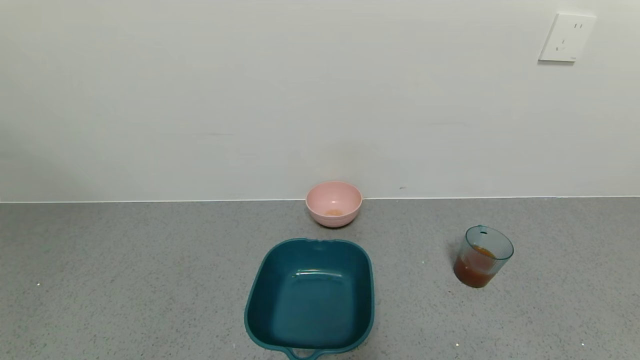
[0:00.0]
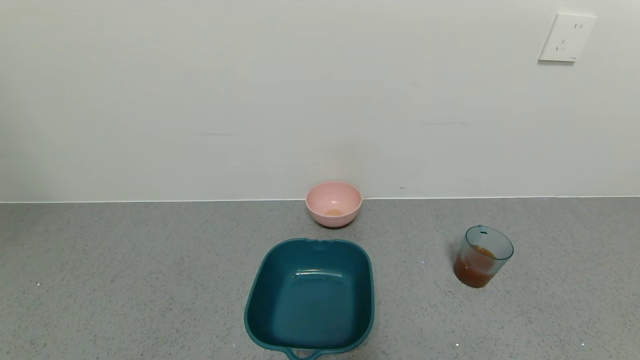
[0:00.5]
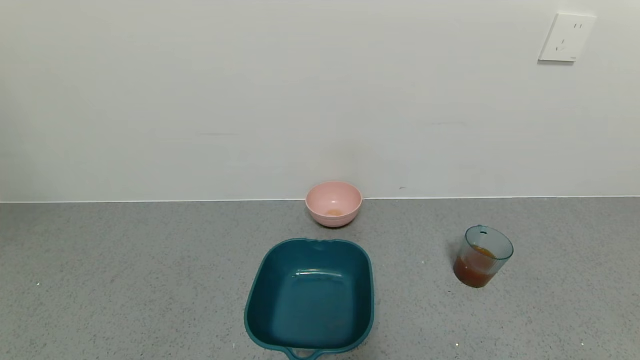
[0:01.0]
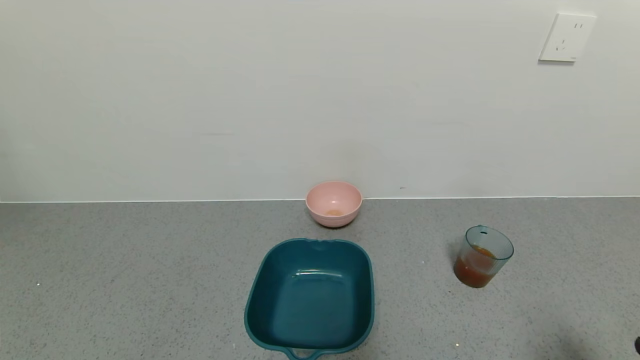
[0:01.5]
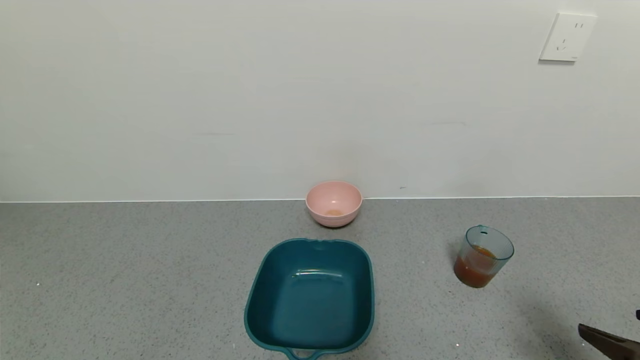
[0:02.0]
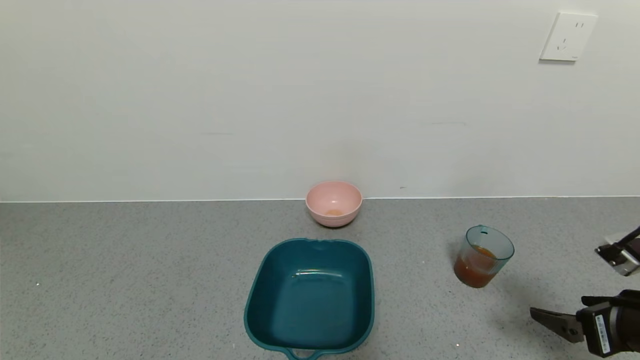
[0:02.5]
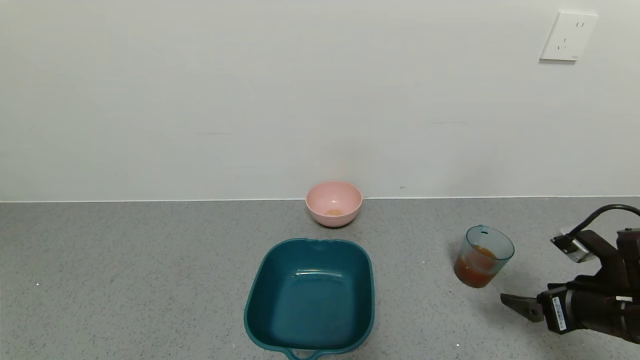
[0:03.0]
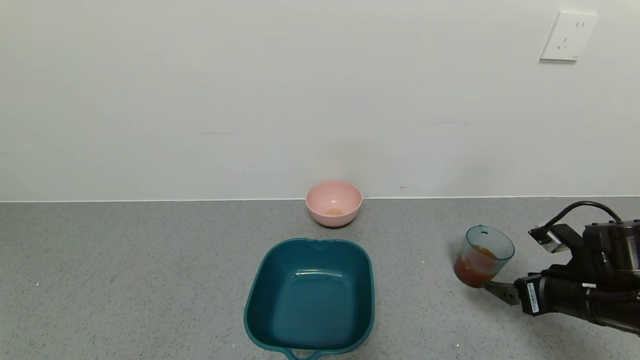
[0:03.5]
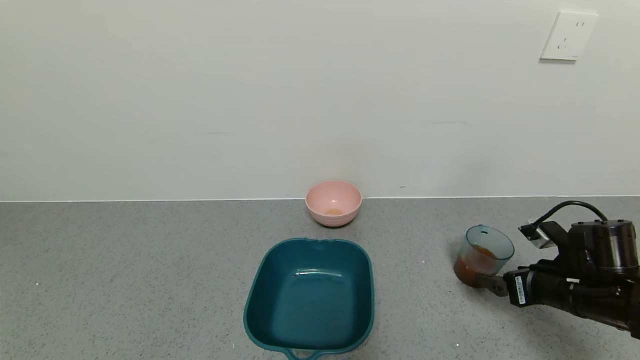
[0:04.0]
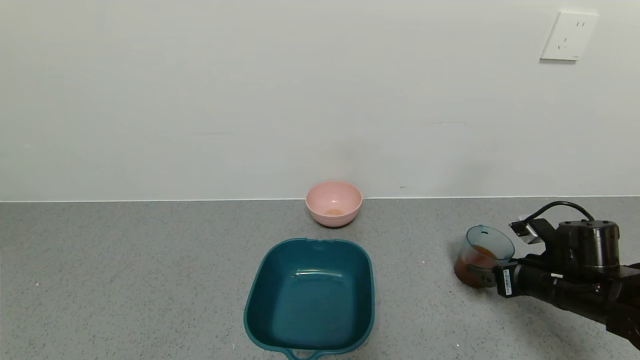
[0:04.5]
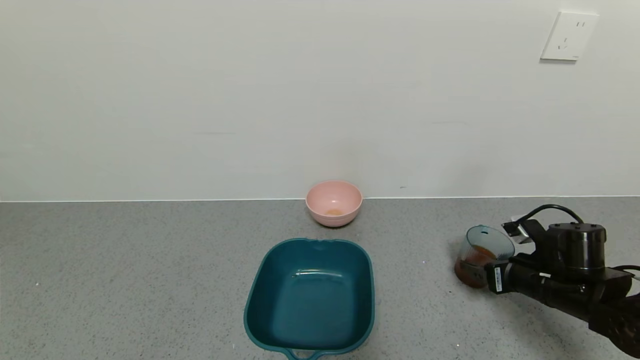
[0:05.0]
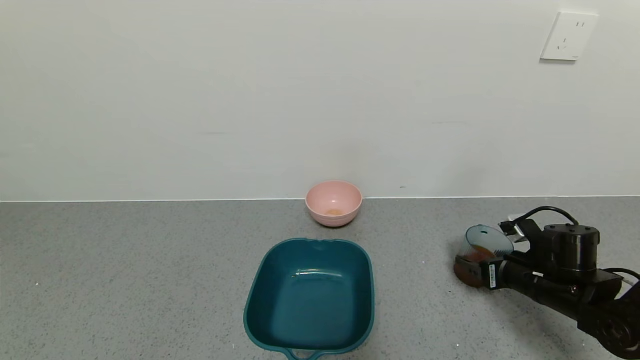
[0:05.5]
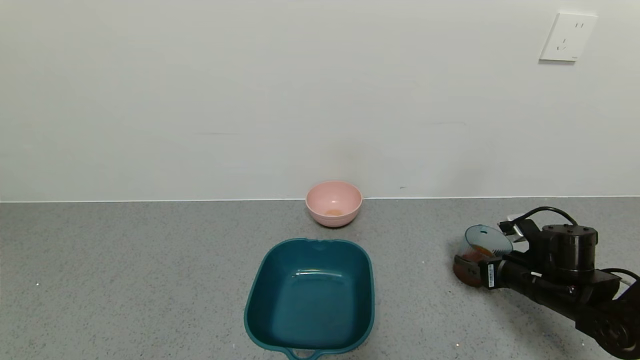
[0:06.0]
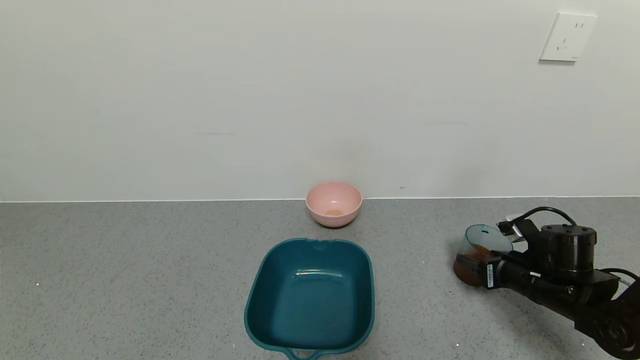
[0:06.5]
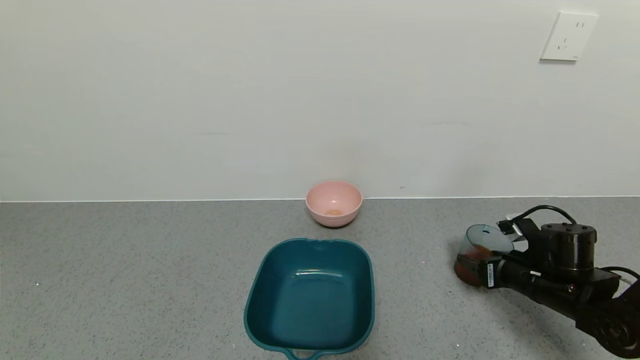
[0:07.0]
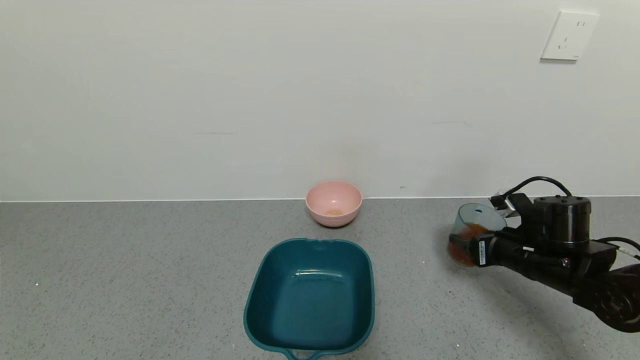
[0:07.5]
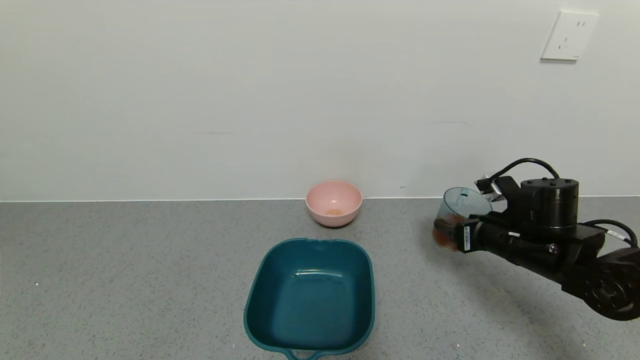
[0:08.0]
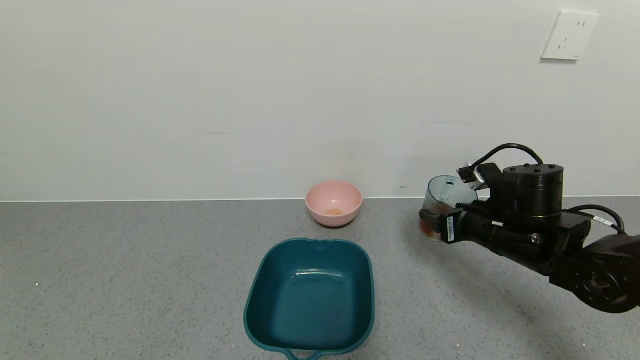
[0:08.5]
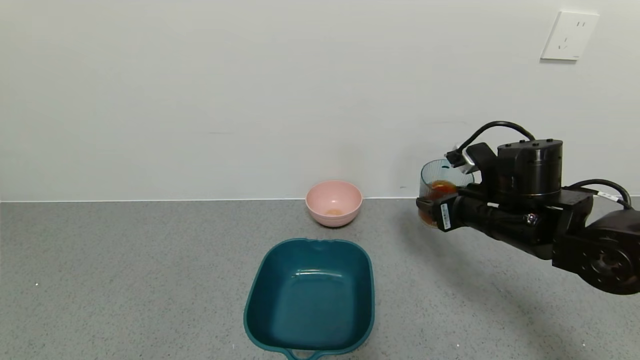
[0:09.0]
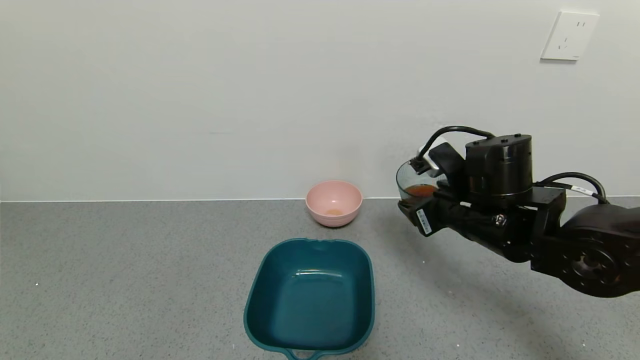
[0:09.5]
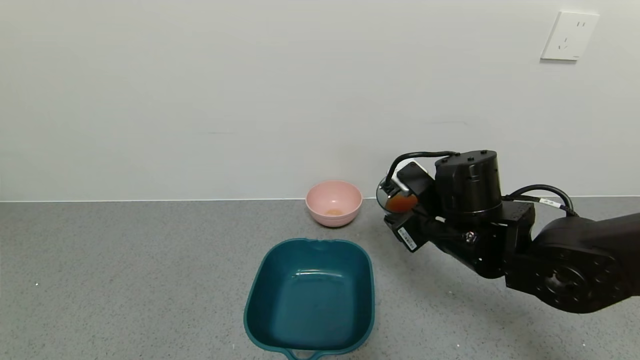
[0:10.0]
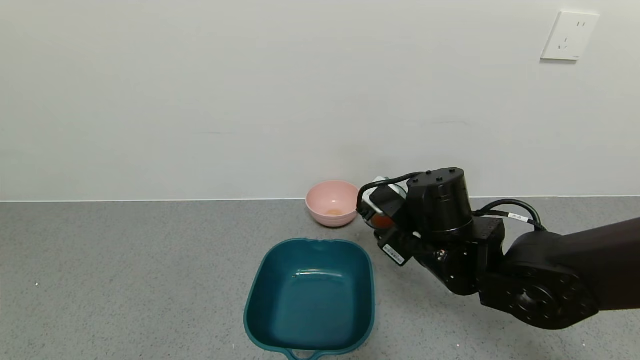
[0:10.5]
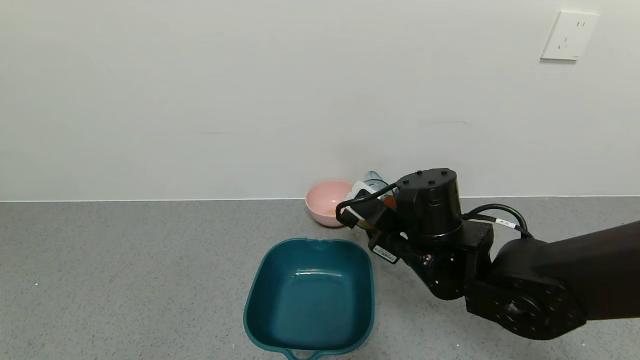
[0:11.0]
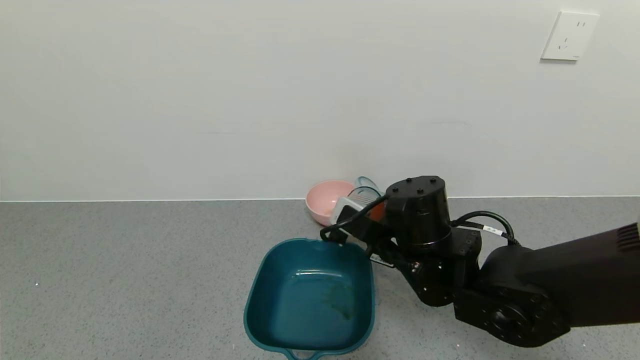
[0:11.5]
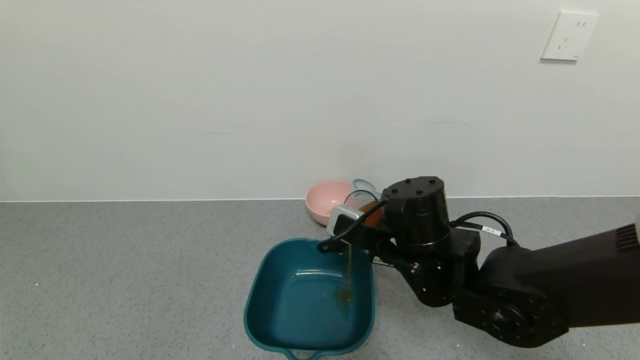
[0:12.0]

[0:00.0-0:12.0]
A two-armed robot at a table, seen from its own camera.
Task of the whole recording: use a gripper to pick up the cup and pour the liquid into a bowl or tray.
Step, 0:00.0 to 0:06.5: Grasp the glass of black tea with the right gripper.
0:00.0 to 0:02.0: The right gripper shifts roughly 15 cm forward and upward.
0:02.0 to 0:04.0: The right gripper heads forward and downward, covering approximately 15 cm.
0:04.0 to 0:06.0: The right gripper ends up roughly 5 cm from where it was.
0:06.0 to 0:08.0: The right gripper heads upward and to the left, covering some 10 cm, and closes.
0:08.0 to 0:10.0: The right gripper is displaced to the left by about 10 cm.
0:10.0 to 0:12.0: The right gripper heads to the left, covering about 5 cm.

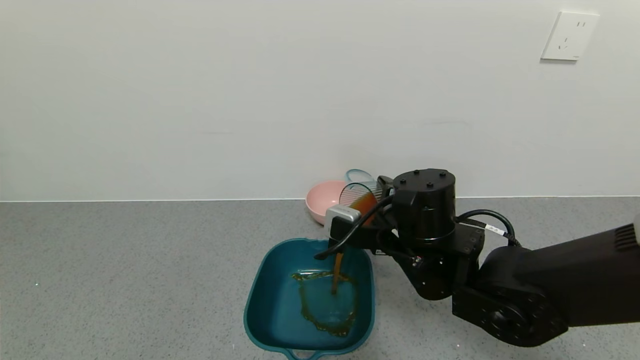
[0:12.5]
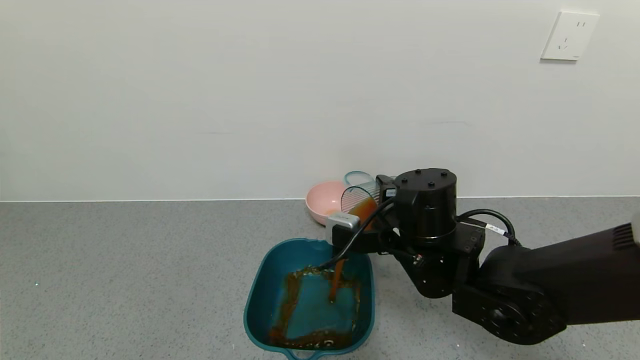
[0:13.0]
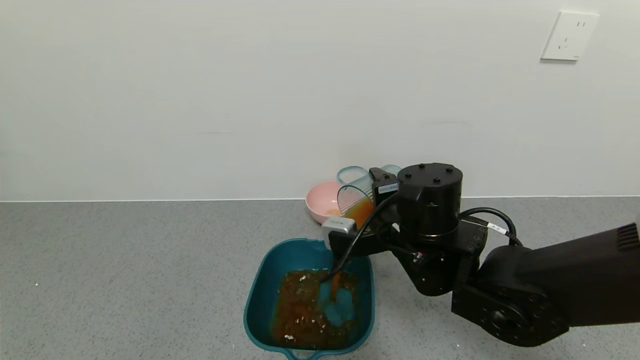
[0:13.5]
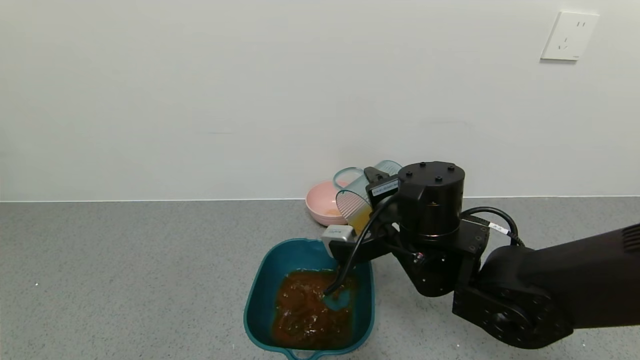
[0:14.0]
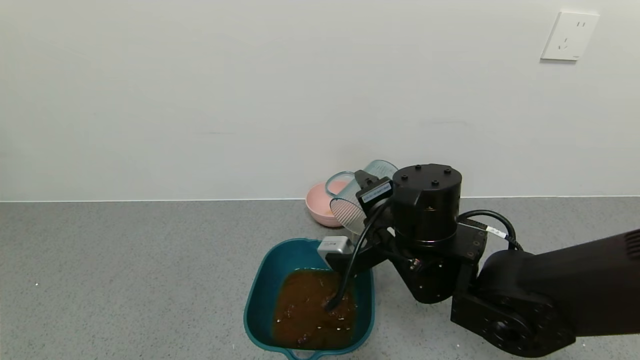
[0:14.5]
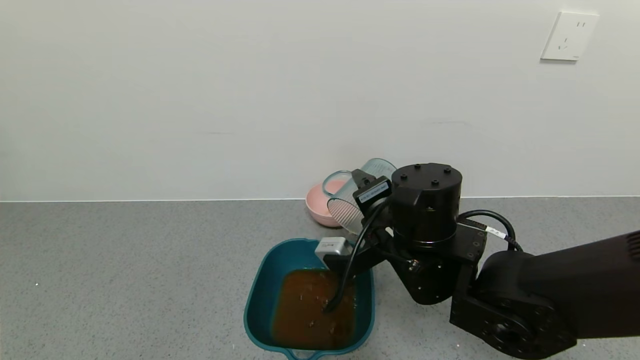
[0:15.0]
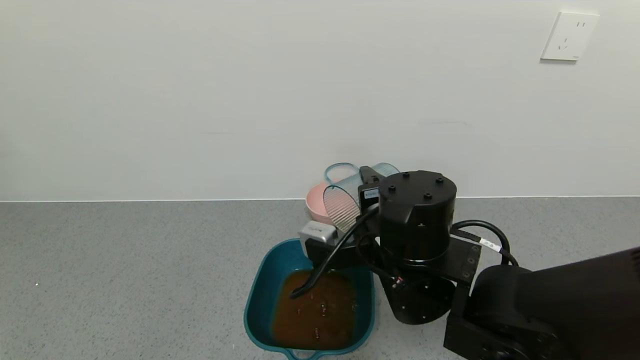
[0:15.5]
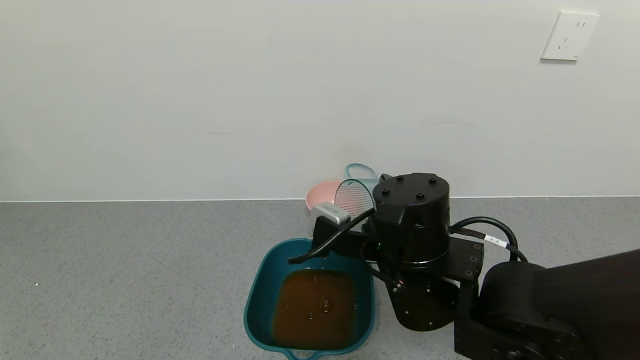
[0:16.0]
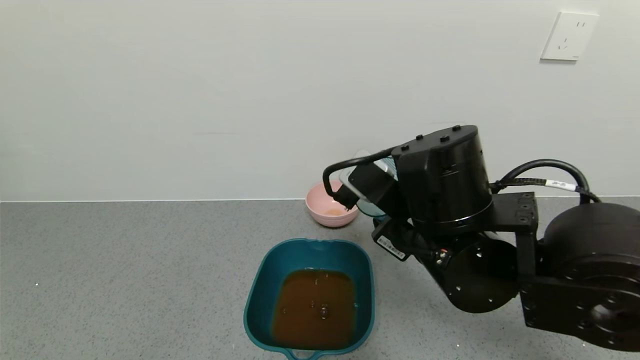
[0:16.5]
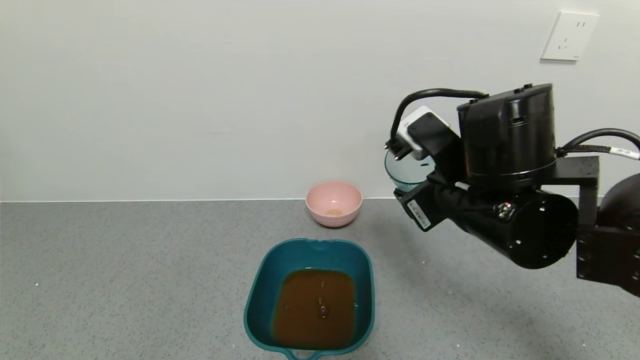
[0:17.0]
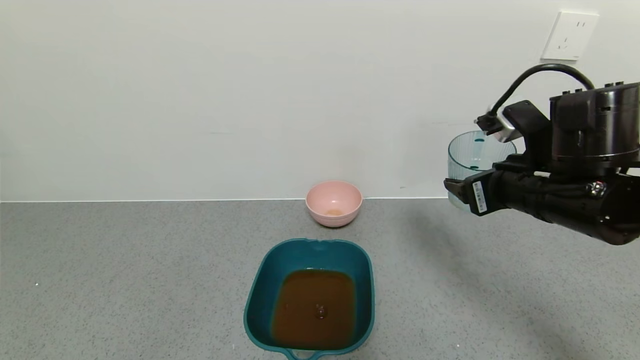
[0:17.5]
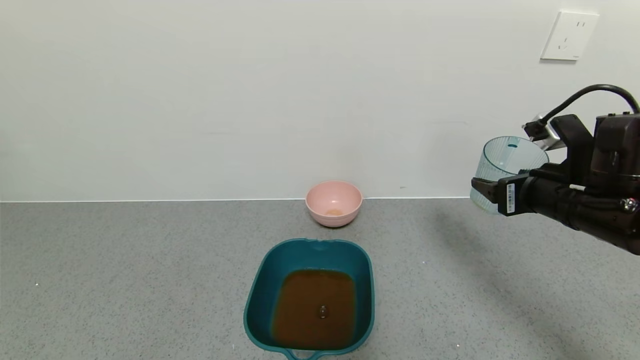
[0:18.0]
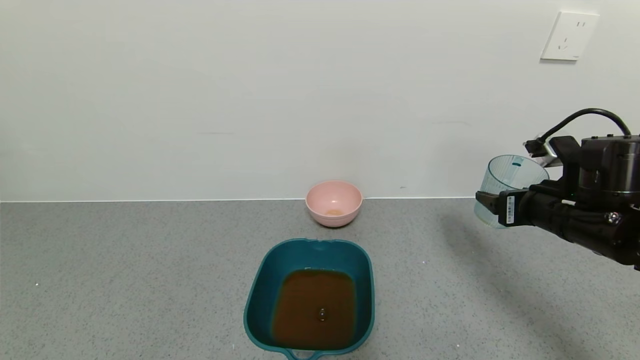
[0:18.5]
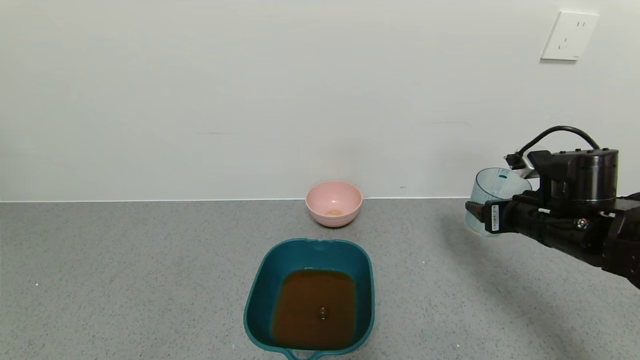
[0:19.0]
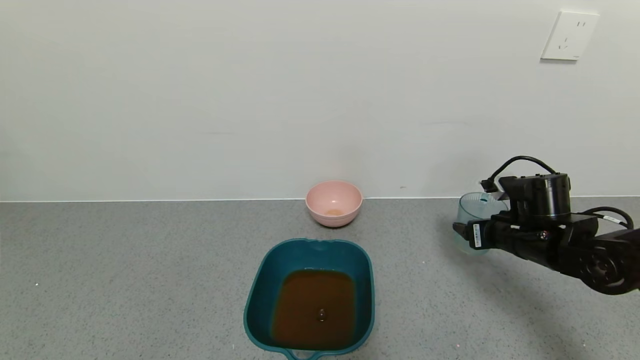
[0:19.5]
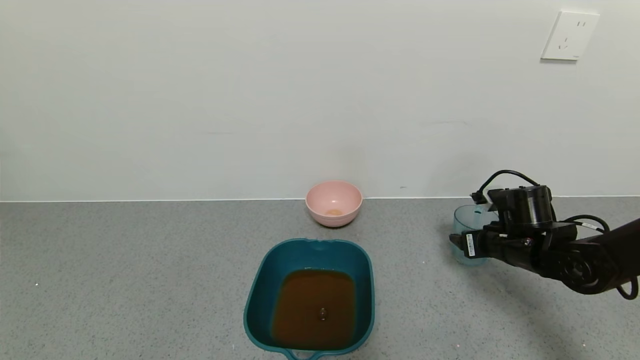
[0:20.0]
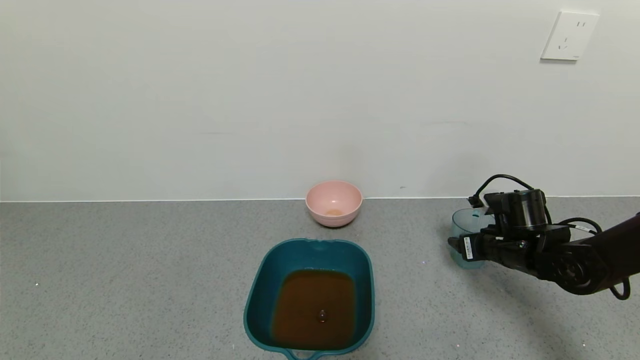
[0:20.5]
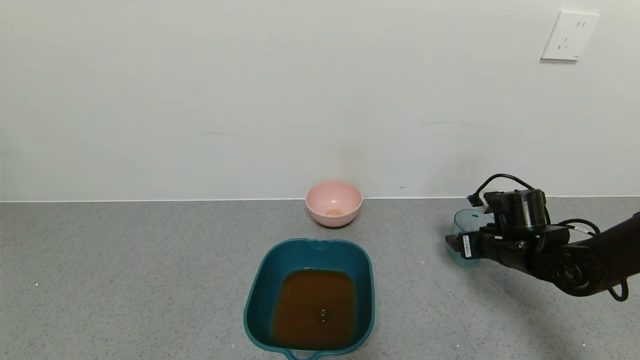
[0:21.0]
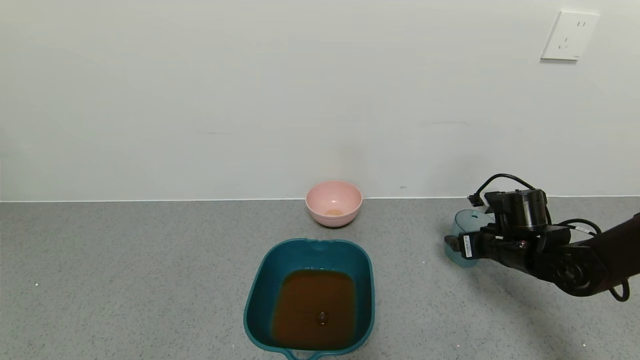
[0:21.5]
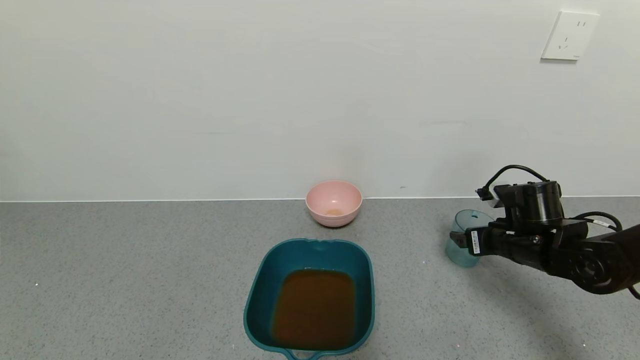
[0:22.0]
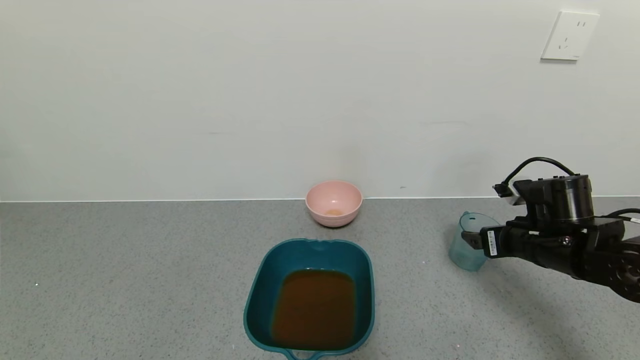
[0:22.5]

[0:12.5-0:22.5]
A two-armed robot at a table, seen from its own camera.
Task of the whole recording: use a gripper to pick up the cup and pour the liquid into a bowl or tray.
Step, 0:12.5 to 0:16.0: Pour the black tea into the green bowl with the right gripper.
0:14.5 to 0:16.5: The right gripper moves approximately 5 cm.
0:16.5 to 0:18.5: The right gripper heads to the right, covering approximately 20 cm.
0:18.5 to 0:20.5: The right gripper heads downward and forward, covering about 15 cm.
0:20.5 to 0:22.5: The right gripper moves some 5 cm, and opens its fingers.
